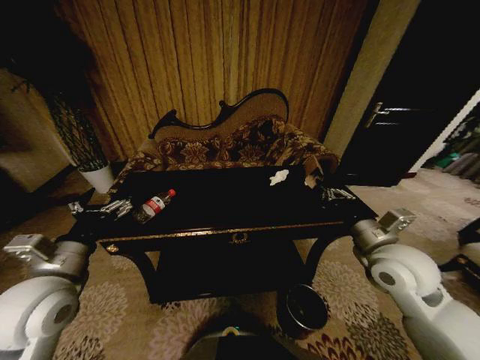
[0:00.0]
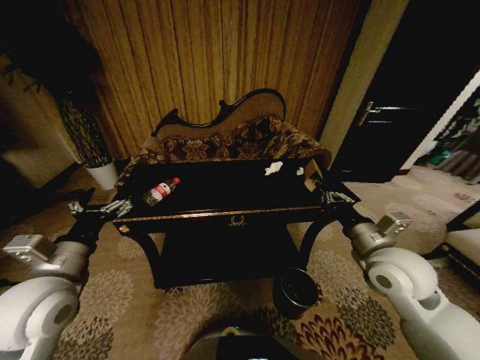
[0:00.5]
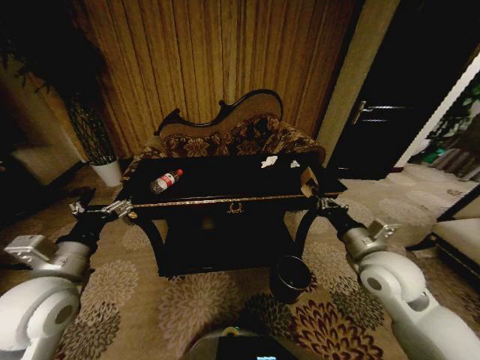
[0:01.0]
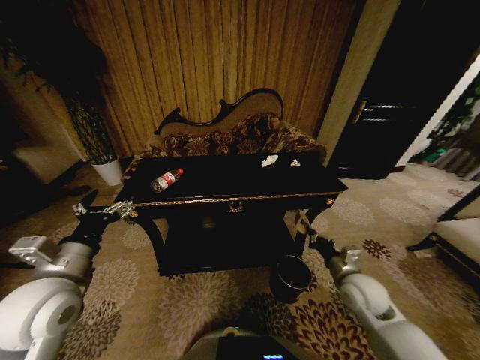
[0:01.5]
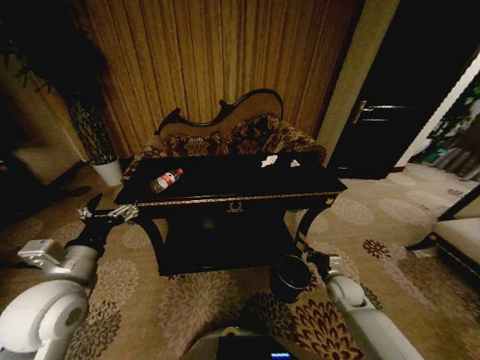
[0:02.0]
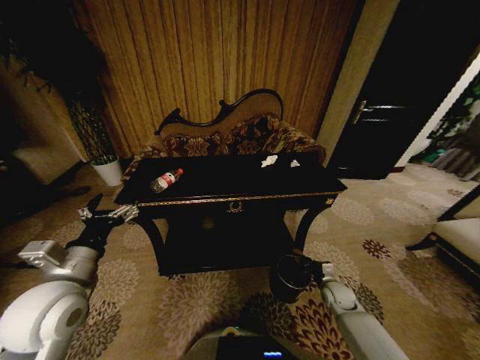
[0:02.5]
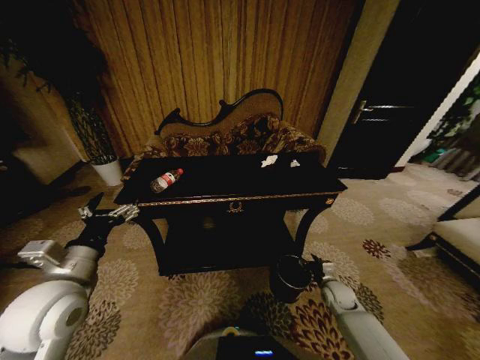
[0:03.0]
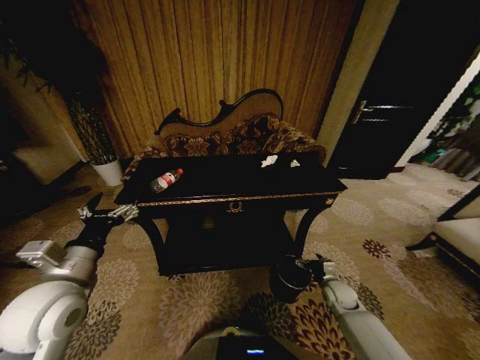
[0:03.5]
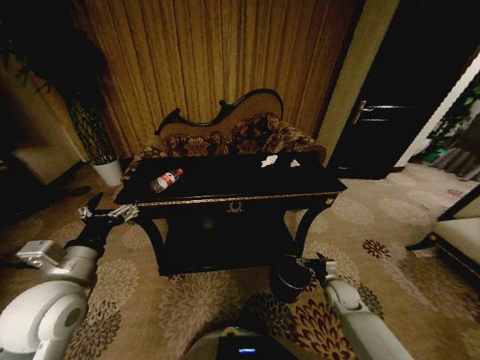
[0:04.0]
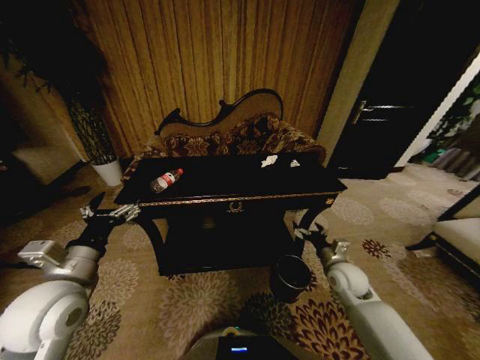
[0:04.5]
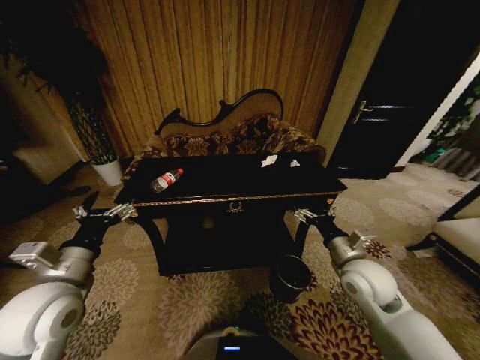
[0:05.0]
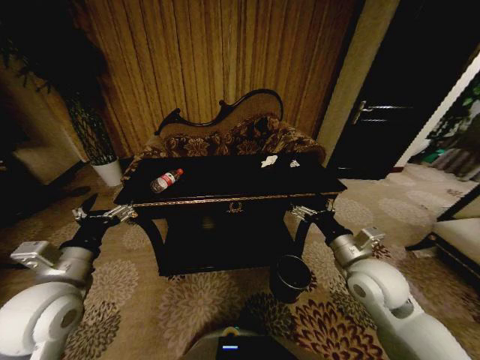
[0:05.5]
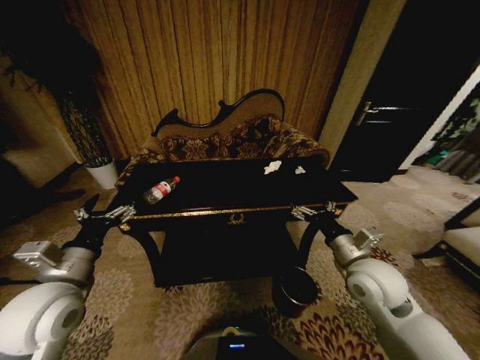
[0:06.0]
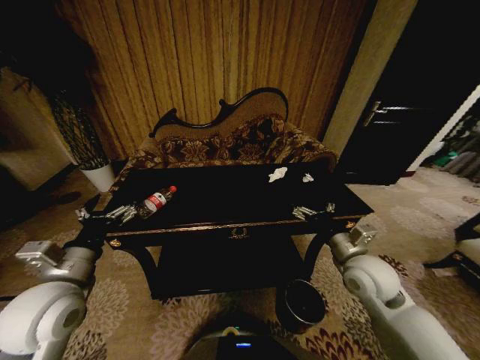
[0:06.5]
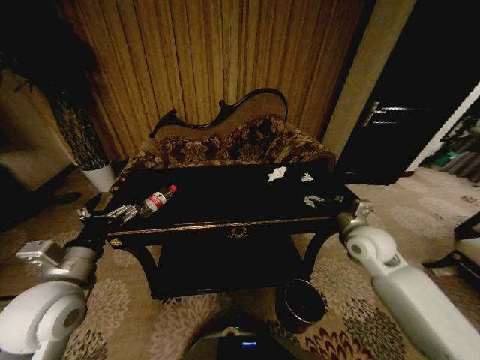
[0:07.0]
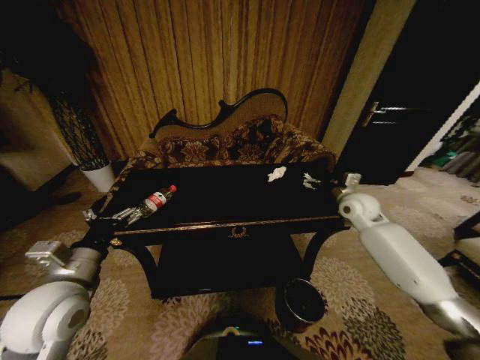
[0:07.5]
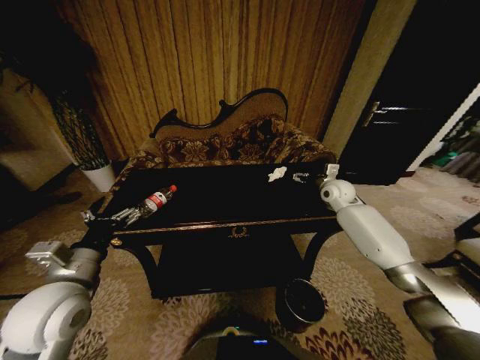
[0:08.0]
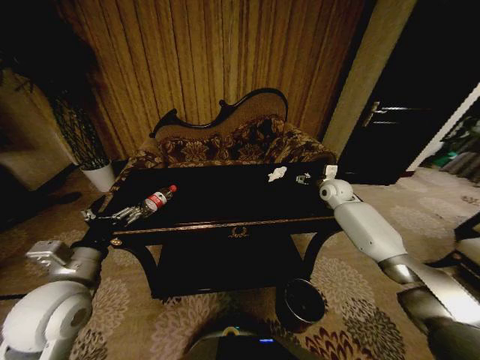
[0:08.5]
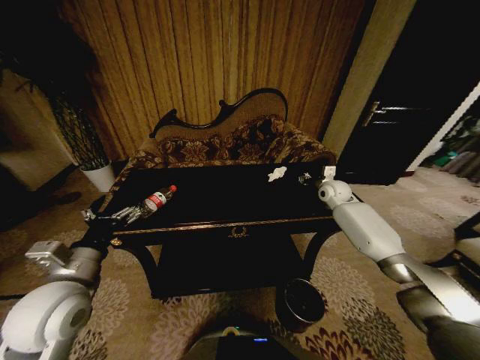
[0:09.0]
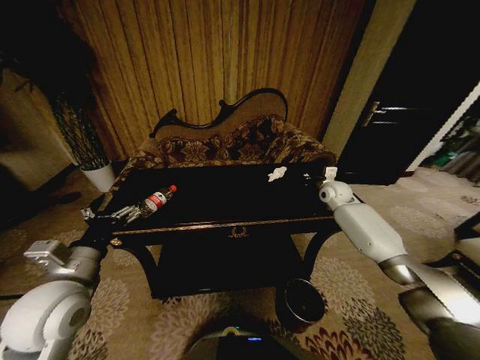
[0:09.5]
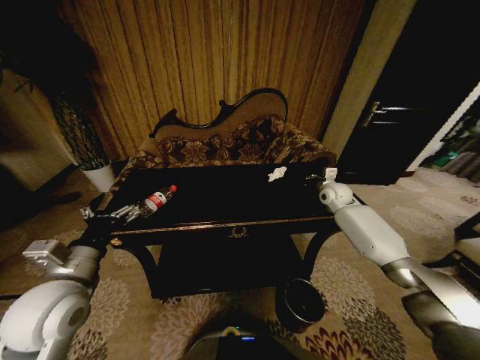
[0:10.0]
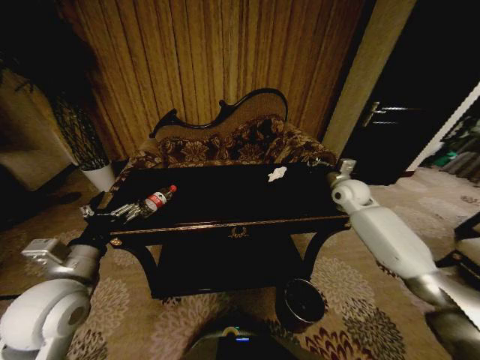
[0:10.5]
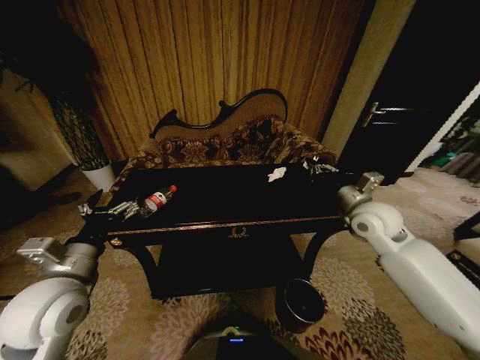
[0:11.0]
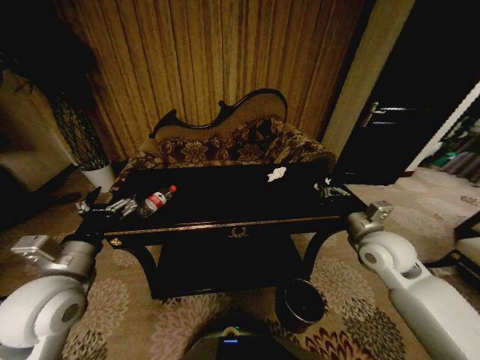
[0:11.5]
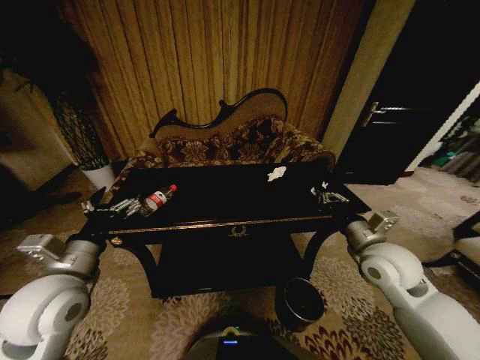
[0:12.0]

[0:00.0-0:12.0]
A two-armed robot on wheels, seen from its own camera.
Task of the whole recording: Move to the front of the table and place the trash on the table into the trash bin.
0:00.0 to 0:02.0: The right gripper shifts roughly 25 cm downward.
0:02.0 to 0:04.0: The right gripper opens up.
0:04.0 to 0:06.0: The right gripper shifts about 25 cm upward.
0:06.0 to 0:08.0: The right gripper shifts some 30 cm forward.
0:08.0 to 0:10.0: The right gripper closes.
0:10.0 to 0:12.0: The right gripper goes some 25 cm backward.

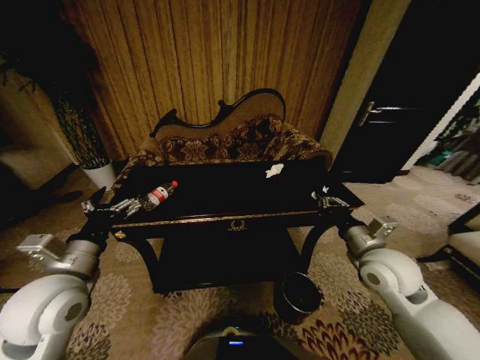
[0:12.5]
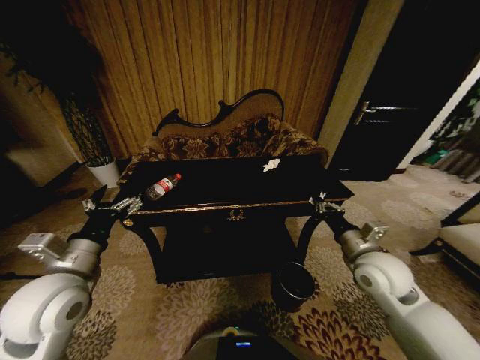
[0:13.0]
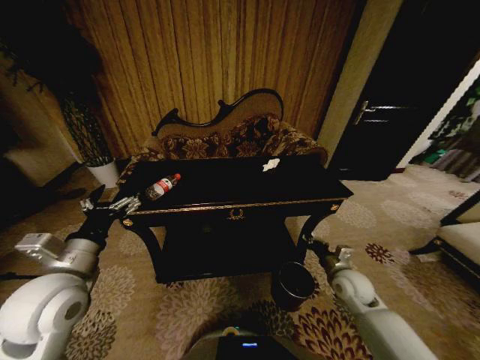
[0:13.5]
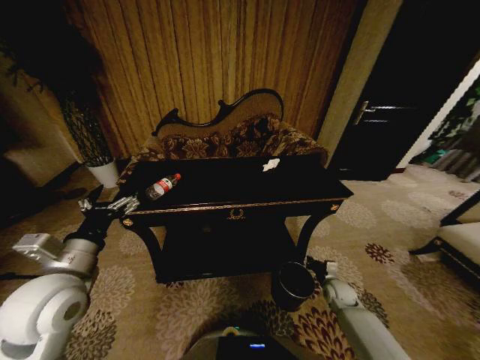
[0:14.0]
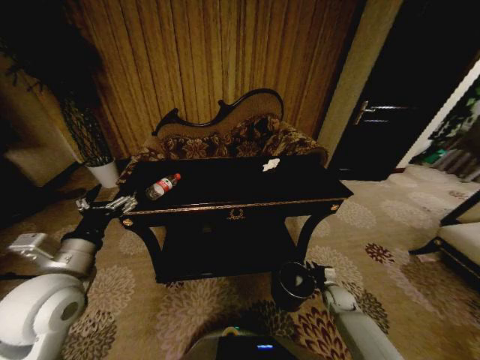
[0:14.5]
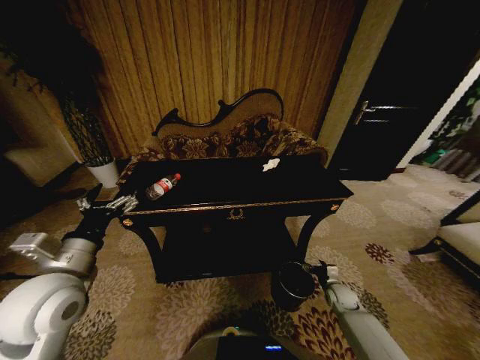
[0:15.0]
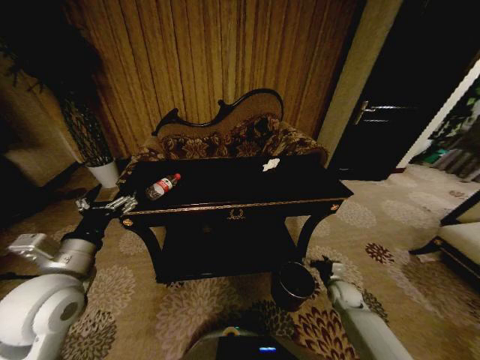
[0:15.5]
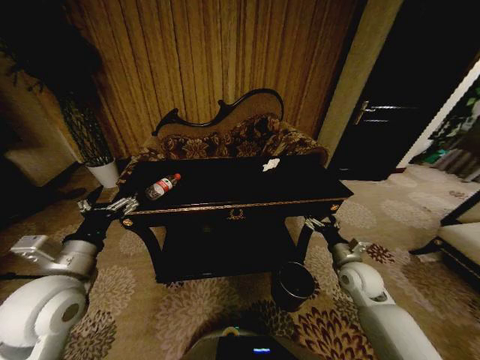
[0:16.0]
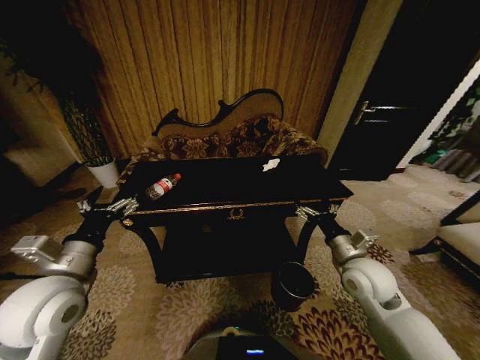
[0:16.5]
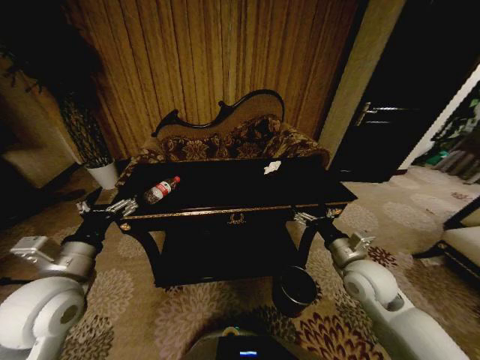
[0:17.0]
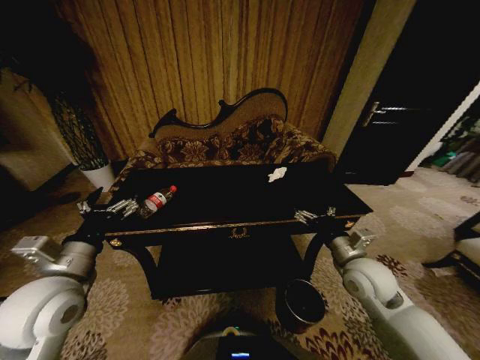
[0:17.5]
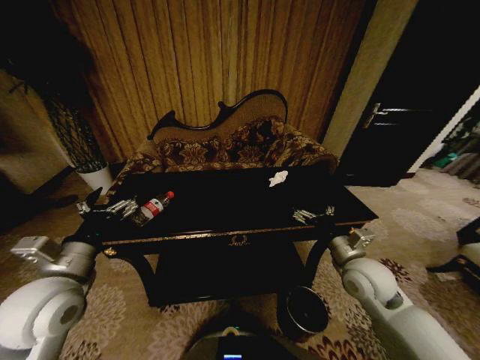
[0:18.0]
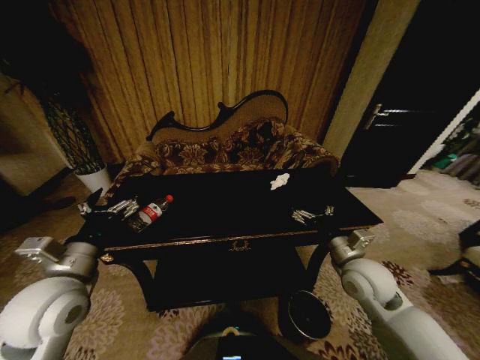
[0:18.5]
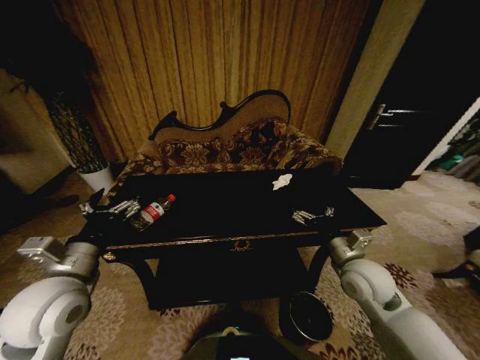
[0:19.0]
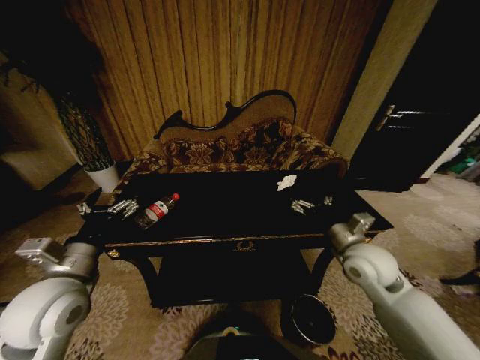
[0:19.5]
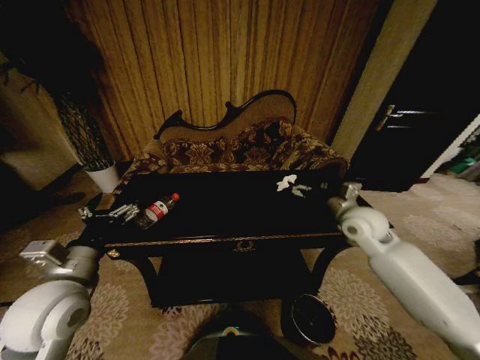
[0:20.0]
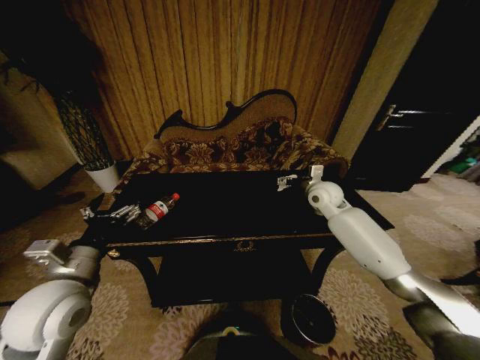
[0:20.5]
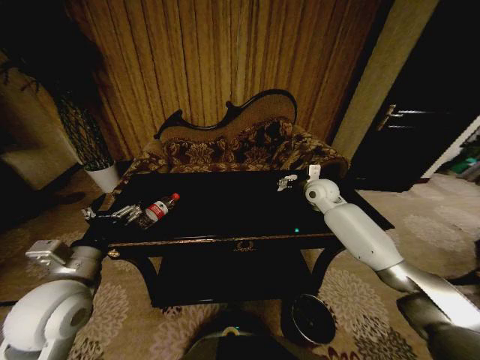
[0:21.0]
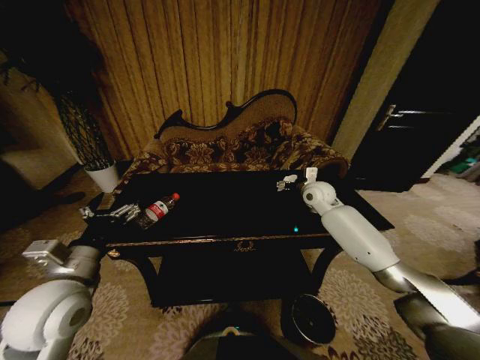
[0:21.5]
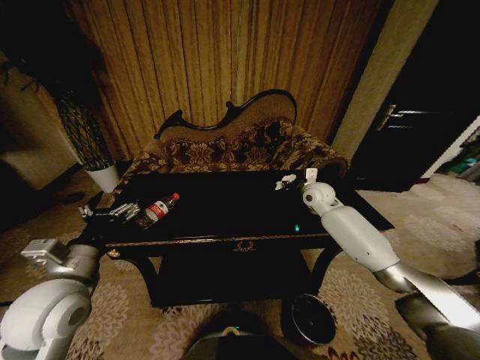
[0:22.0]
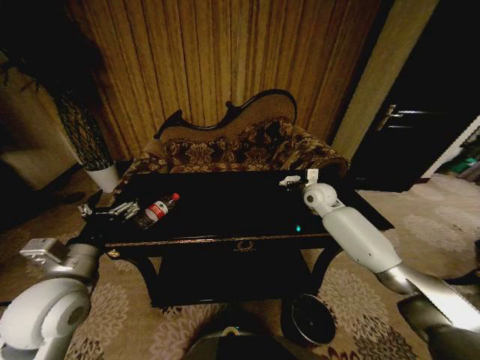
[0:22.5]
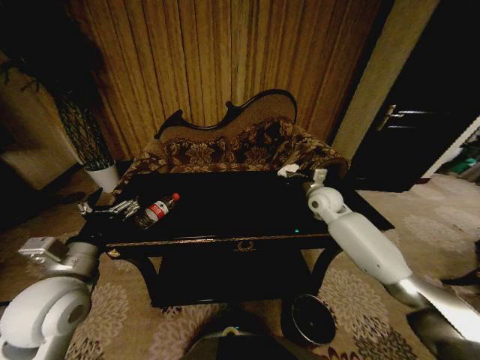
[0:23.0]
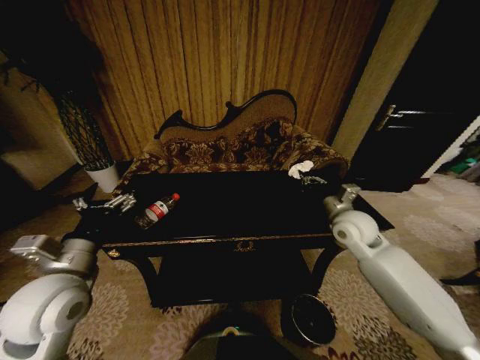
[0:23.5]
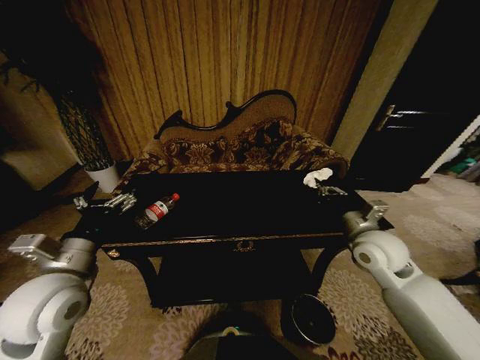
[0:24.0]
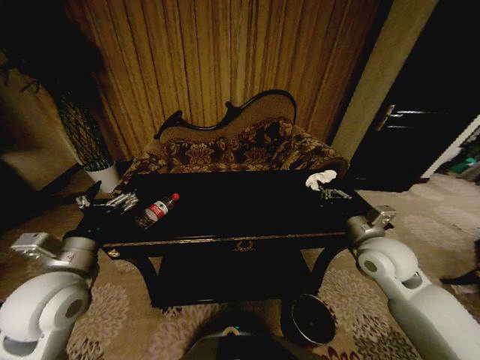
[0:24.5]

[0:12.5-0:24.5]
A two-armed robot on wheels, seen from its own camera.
Task of the whole recording: Move to the front of the table and place the trash on the table into the trash bin.
0:12.5 to 0:14.5: The right gripper travels downward by some 35 cm.
0:14.5 to 0:16.5: The right gripper heads upward, covering some 30 cm, and opens.
0:18.5 to 0:20.5: The right gripper shifts some 20 cm forward.
0:20.5 to 0:22.5: The right gripper closes.
0:22.5 to 0:24.5: The right gripper heads backward, covering about 25 cm.

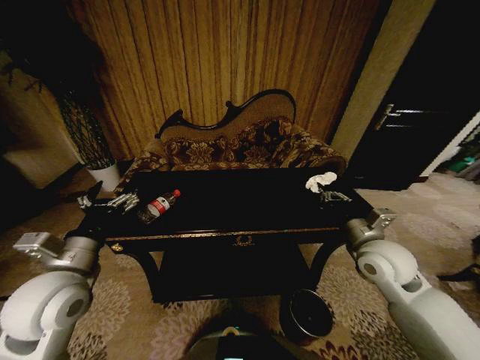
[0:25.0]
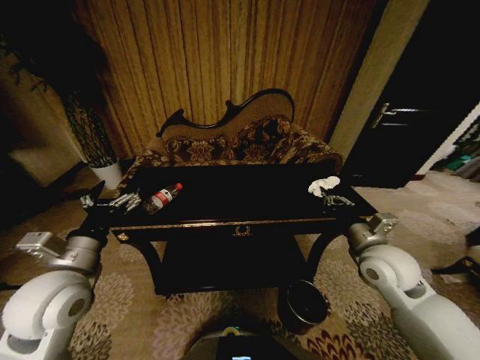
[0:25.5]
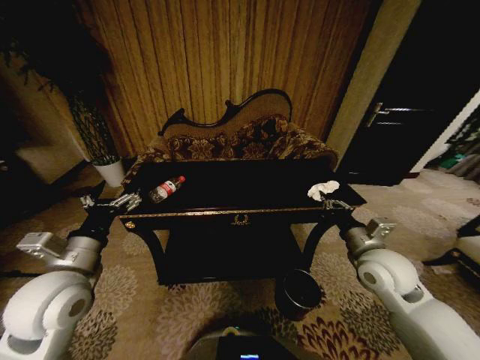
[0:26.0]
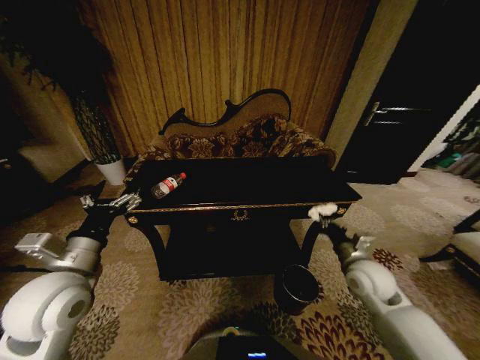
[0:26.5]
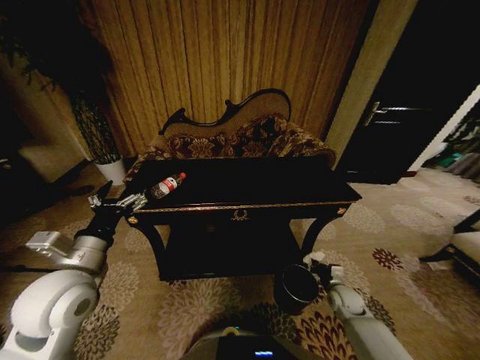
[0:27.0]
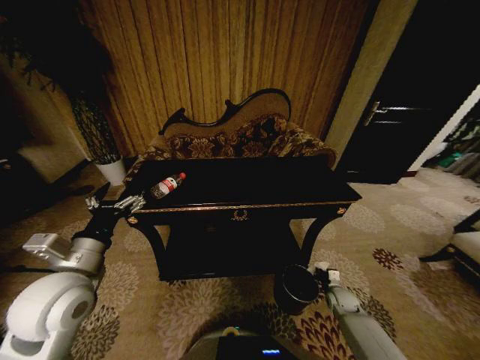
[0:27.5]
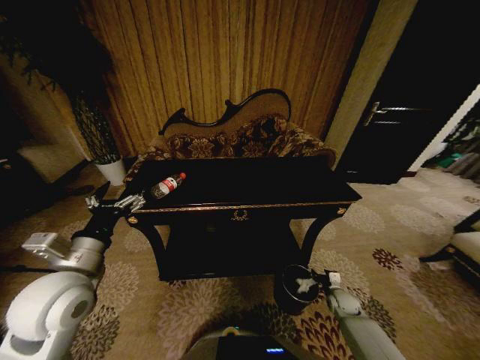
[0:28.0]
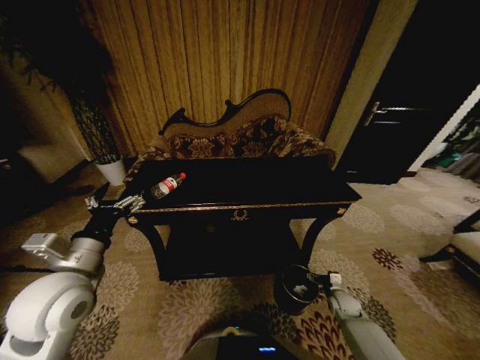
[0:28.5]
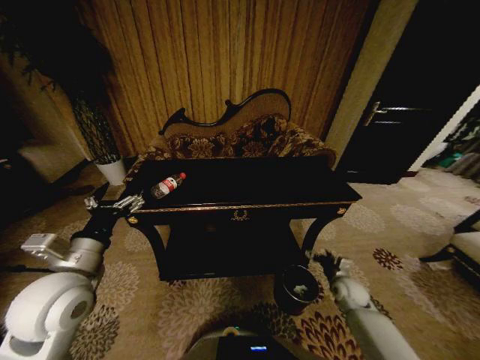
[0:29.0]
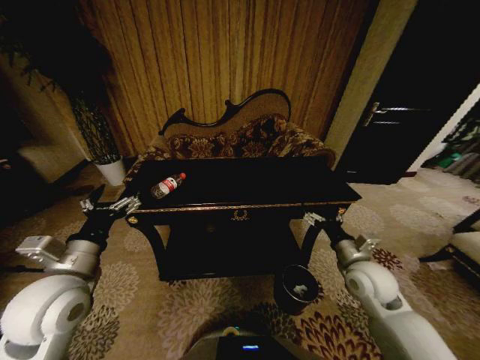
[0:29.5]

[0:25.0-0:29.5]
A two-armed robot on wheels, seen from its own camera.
Task of the whole recording: Move to the front of the table and place the trash on the table into the trash bin.
0:25.0 to 0:27.0: The right gripper travels downward by some 30 cm.
0:27.0 to 0:29.5: The right gripper goes approximately 20 cm upward, and opens.
